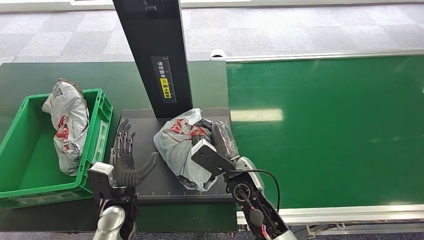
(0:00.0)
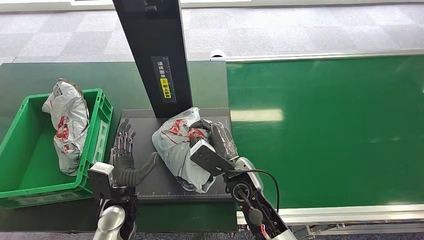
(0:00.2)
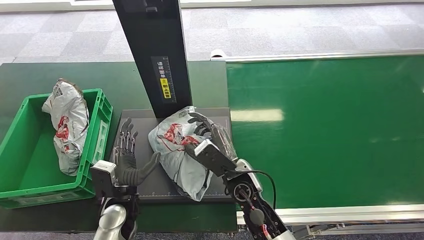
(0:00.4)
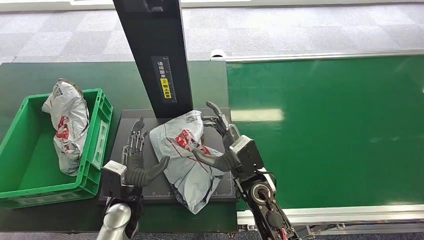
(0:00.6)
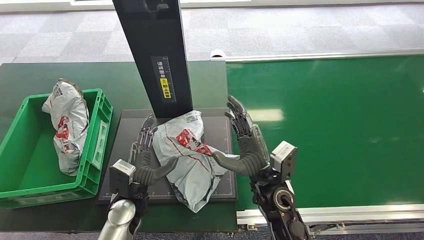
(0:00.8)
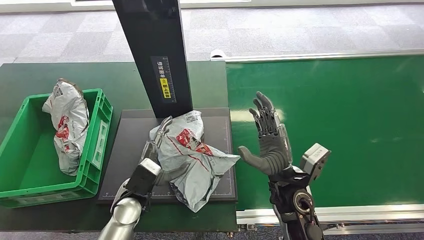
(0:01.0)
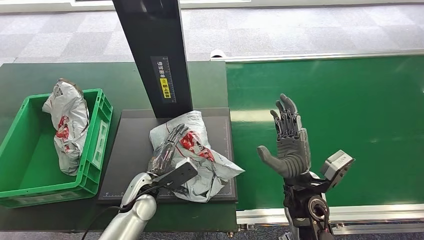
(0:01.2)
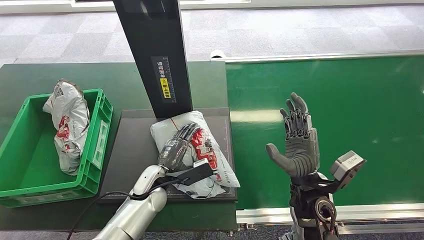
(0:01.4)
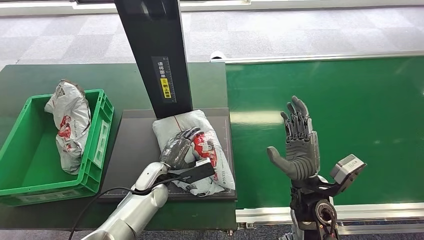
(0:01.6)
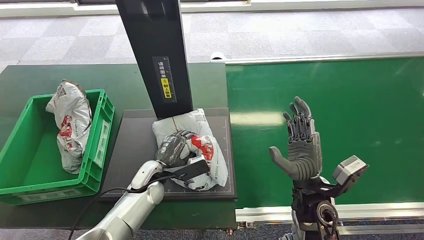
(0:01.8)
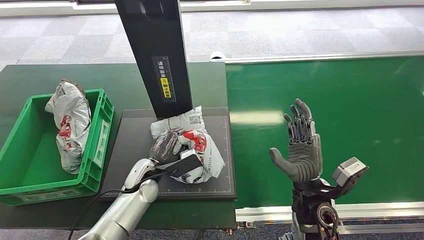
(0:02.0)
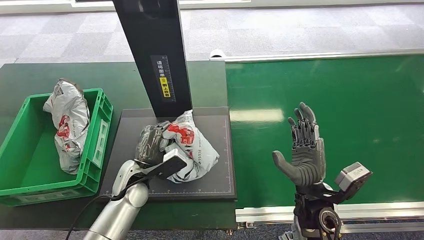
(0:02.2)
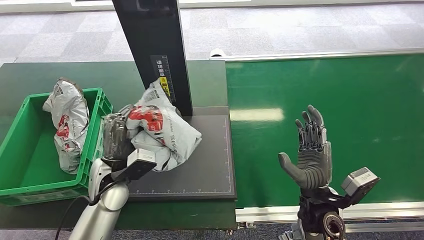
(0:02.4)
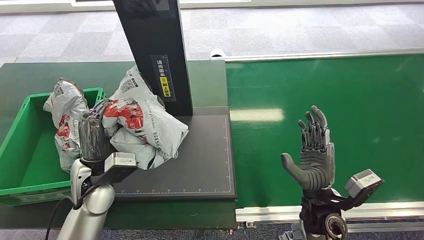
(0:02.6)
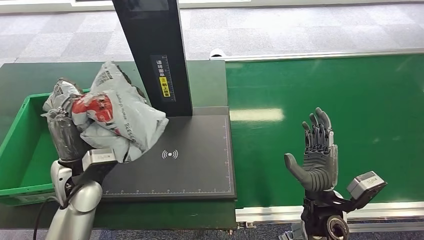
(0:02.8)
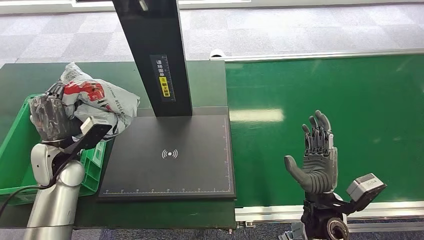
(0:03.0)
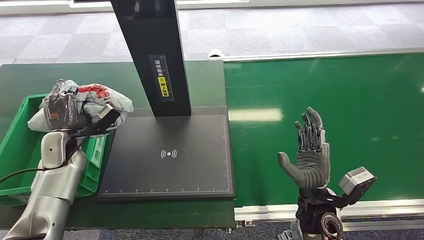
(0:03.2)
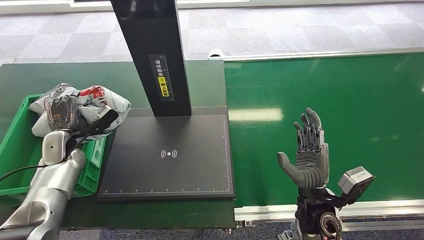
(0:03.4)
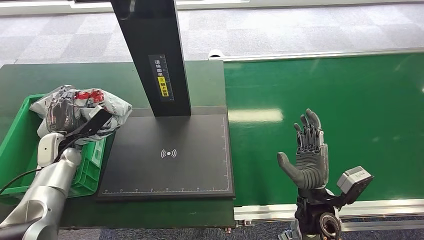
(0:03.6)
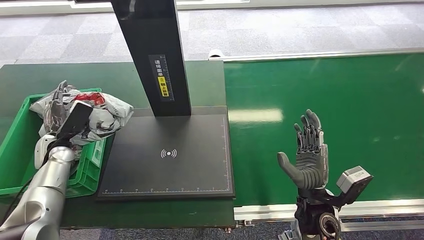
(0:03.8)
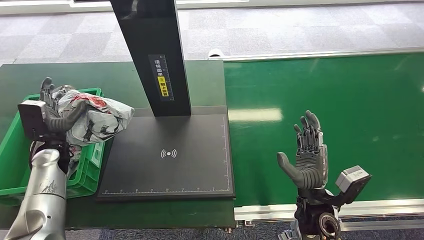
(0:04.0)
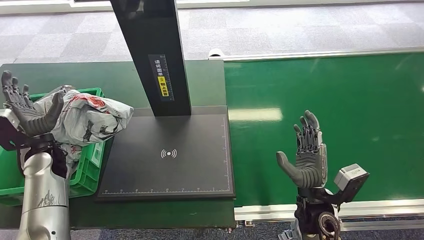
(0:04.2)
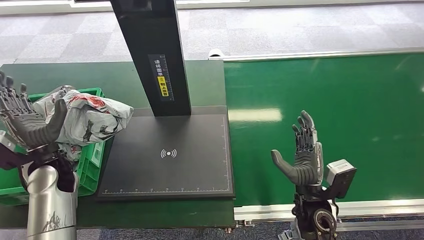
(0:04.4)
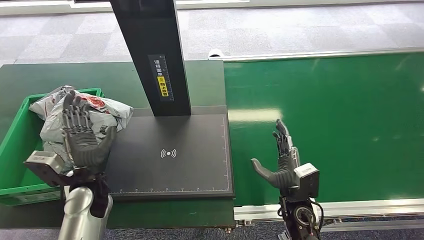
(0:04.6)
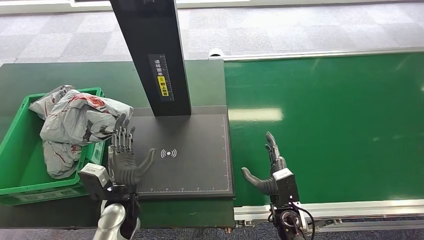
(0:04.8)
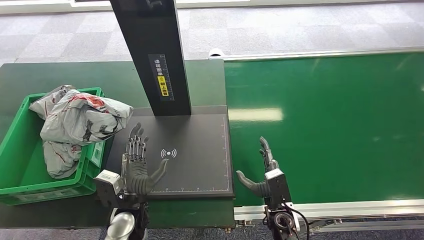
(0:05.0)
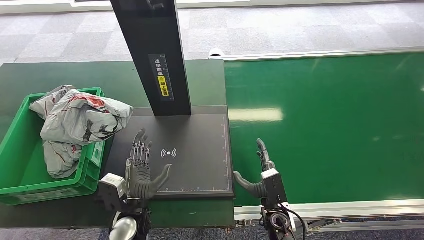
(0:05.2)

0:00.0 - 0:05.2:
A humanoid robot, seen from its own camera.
Step, 0:00.0 - 0:01.6: Place the package onto the inbound machine.
Step, 0:02.0 - 0:02.8: Pick up the package from the inbound machine.
Step, 0:03.2 - 0:05.2: Place the package into the parcel locker.
0:03.4 - 0:05.2: The right hand moves downward, approximately 10 cm. Meanwhile the left hand moves to the right and backward, approximately 30 cm.

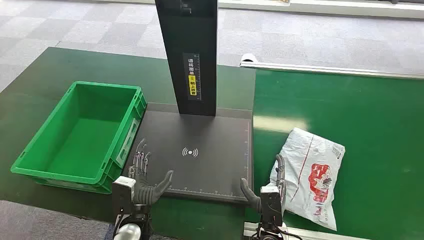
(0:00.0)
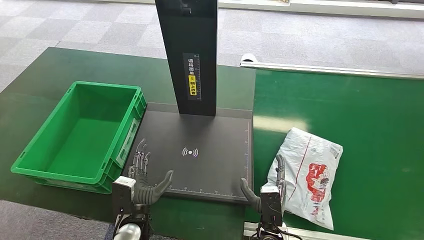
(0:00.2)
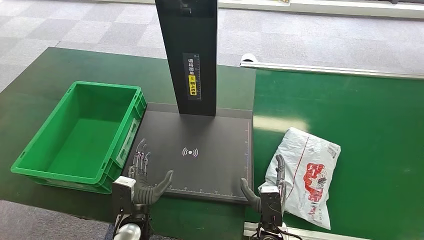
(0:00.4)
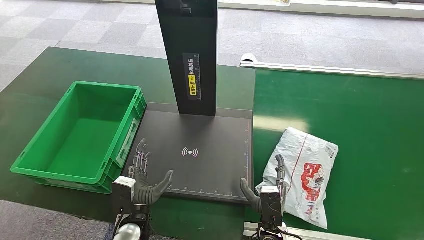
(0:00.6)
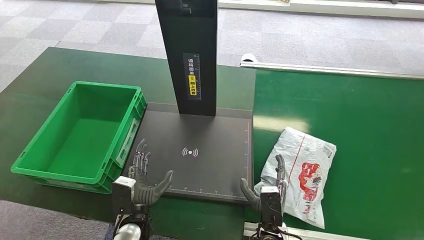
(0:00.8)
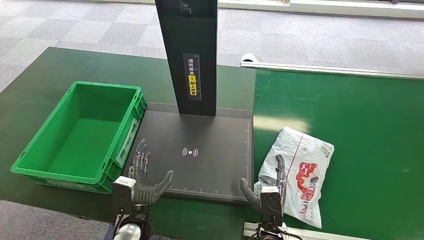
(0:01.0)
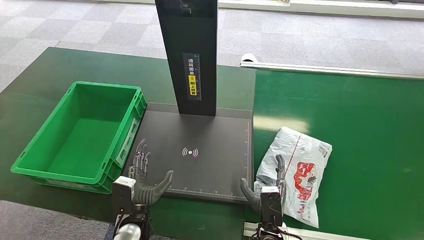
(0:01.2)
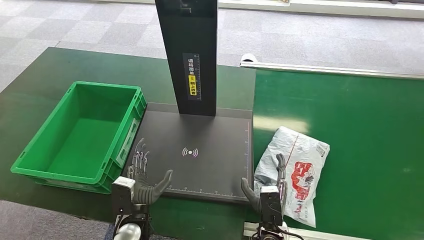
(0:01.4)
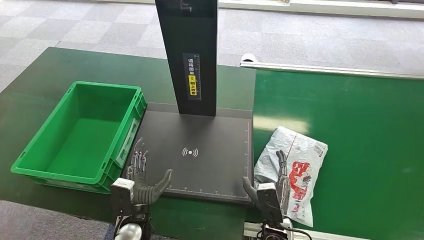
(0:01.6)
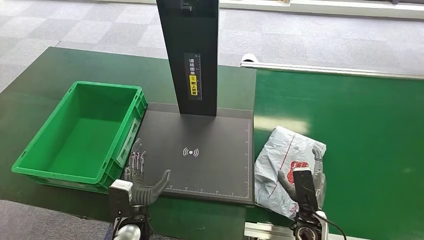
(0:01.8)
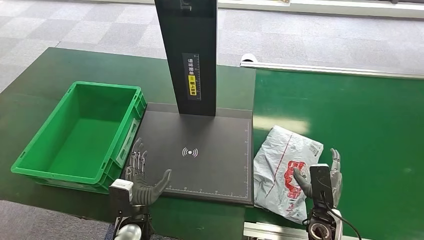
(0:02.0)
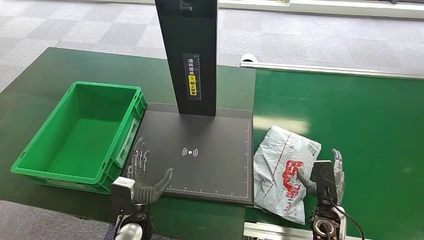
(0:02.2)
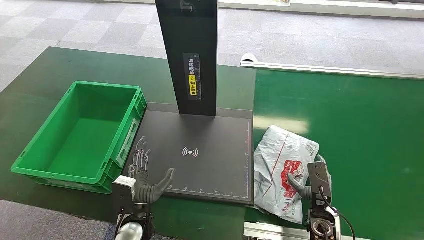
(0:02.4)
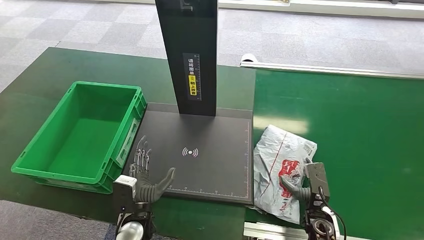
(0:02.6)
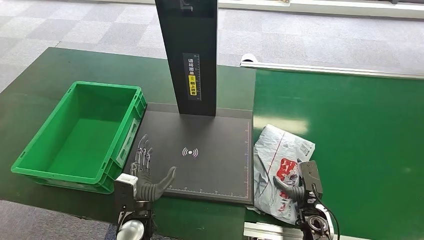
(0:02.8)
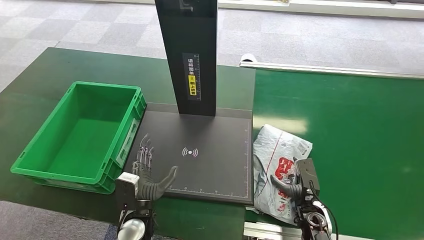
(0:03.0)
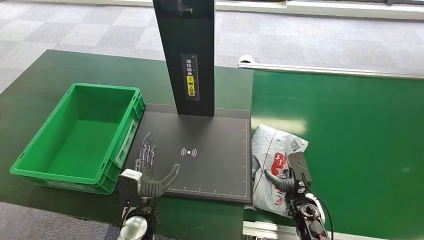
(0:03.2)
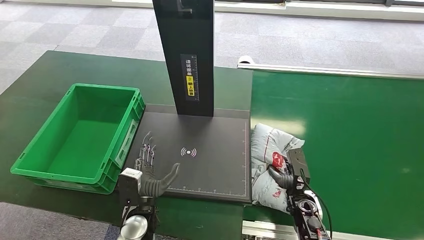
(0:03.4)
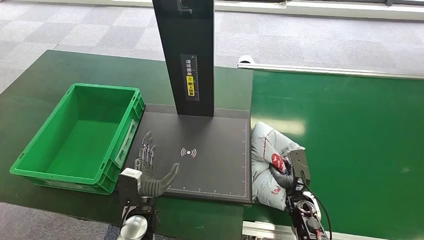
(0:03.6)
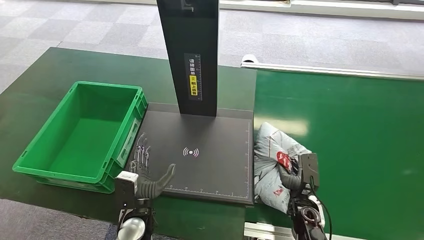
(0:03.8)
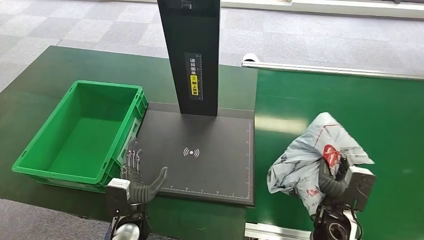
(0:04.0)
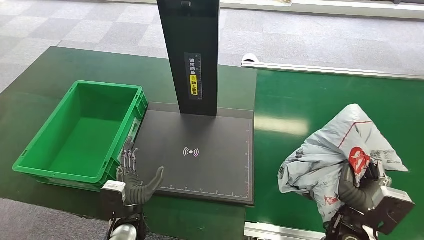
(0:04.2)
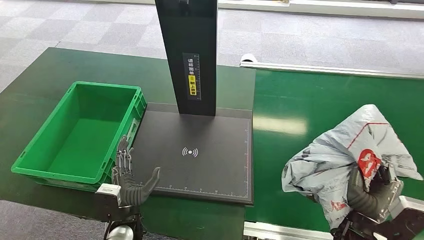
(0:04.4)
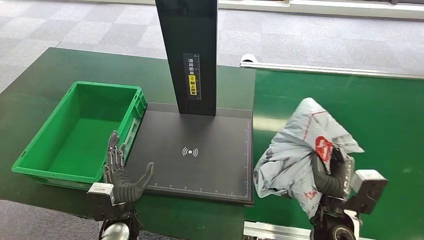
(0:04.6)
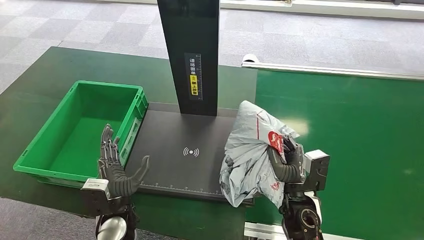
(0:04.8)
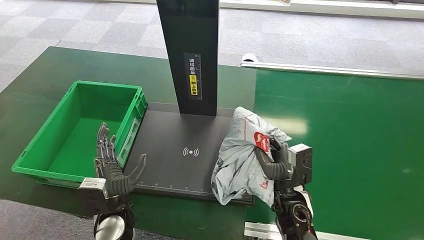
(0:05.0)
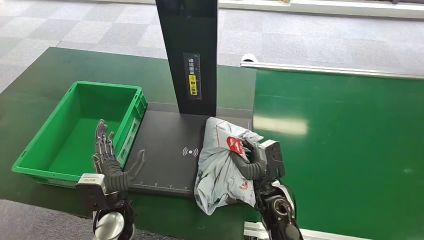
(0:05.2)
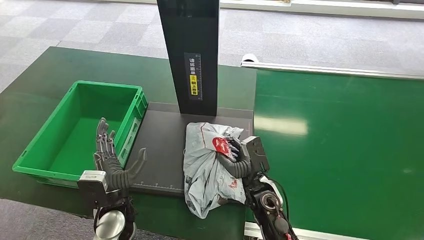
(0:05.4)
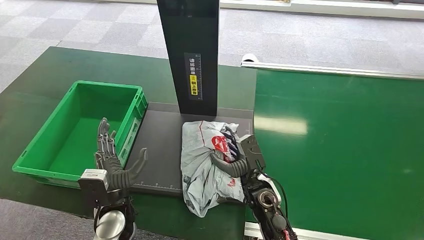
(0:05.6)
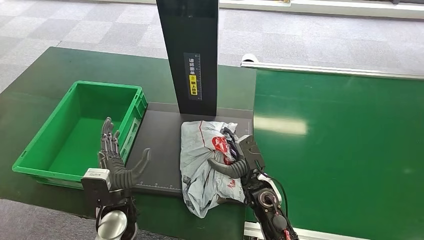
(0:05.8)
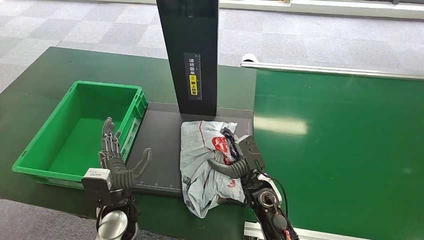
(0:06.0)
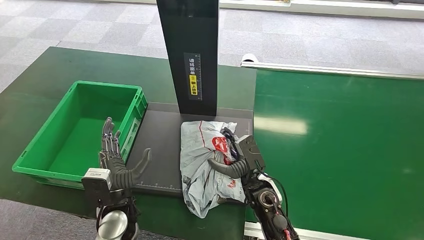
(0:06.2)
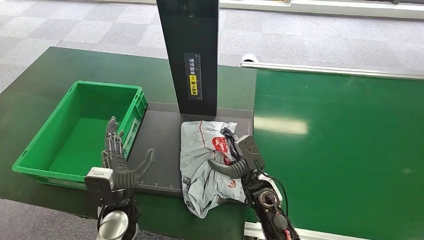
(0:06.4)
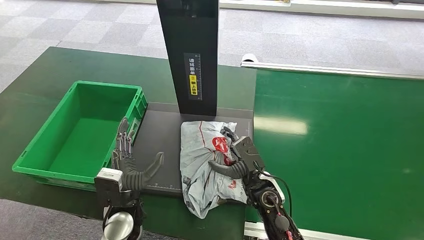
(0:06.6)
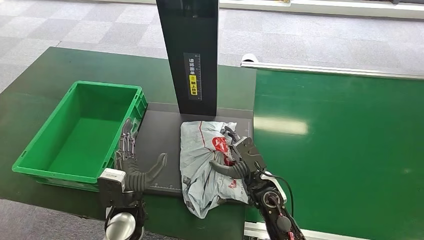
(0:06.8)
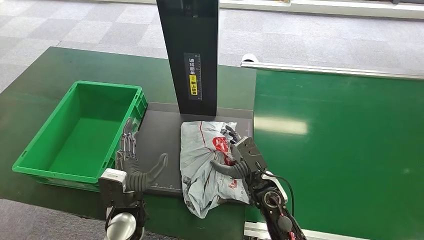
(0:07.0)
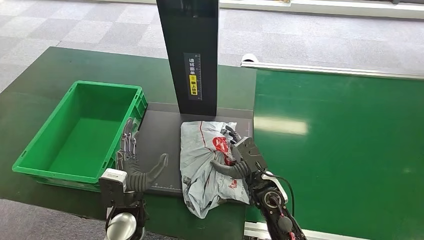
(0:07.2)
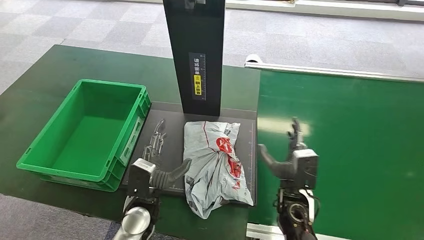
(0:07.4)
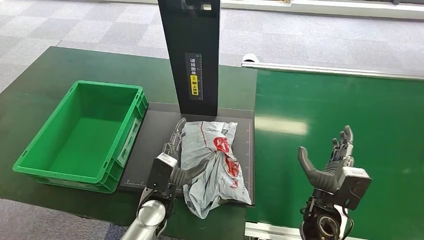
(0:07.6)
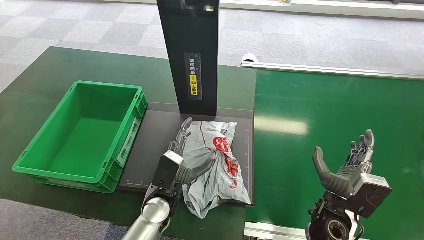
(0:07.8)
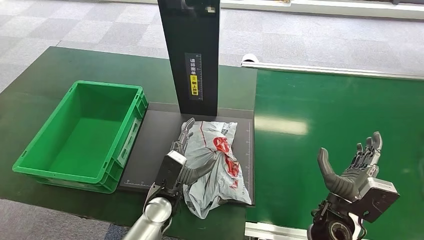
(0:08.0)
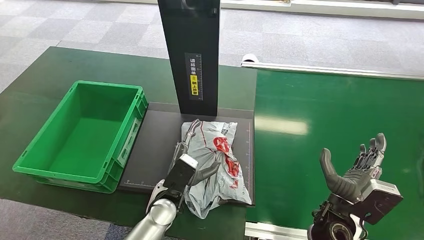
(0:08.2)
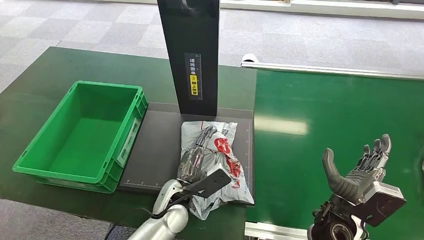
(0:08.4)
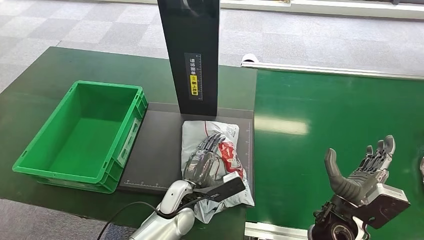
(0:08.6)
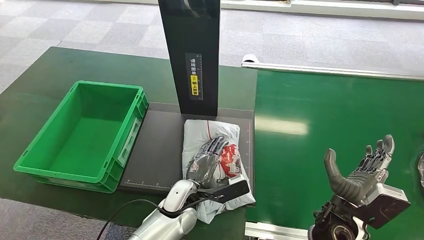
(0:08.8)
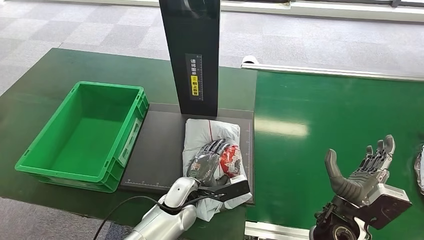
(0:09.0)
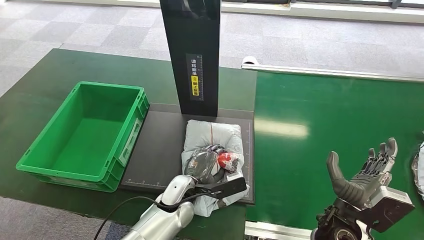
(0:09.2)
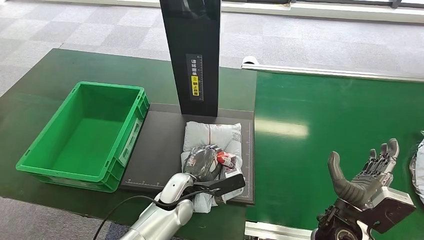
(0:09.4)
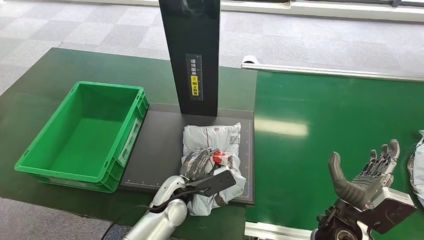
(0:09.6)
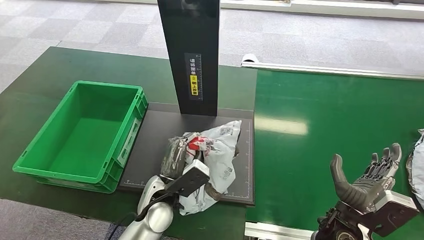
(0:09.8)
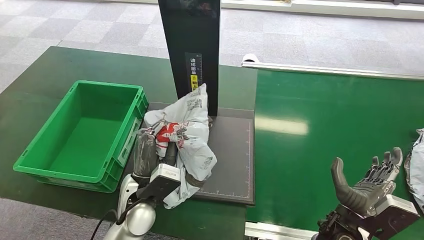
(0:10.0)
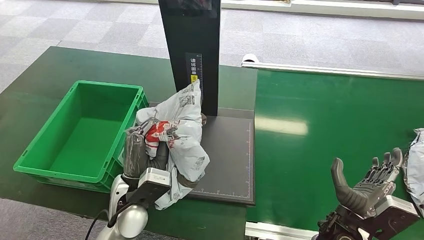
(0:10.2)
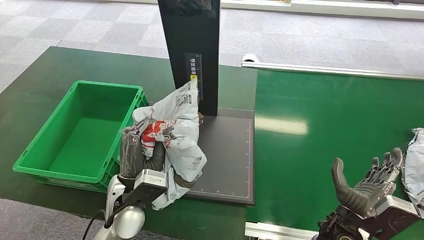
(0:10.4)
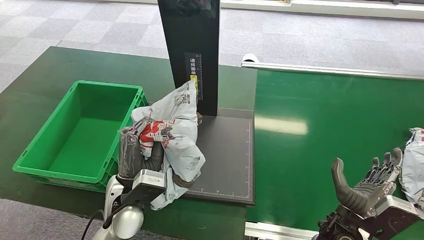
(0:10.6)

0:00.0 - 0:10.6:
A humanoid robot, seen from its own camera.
Step, 0:00.0 - 0:04.4: Pick up the package from the conveyor belt.
Step, 0:05.8 - 0:07.8: Place the package onto the inbound machine.
Step, 0:08.0 - 0:10.4: Pick up the package from the inbound machine.
0:01.6 - 0:03.0: The right hand travels to the right and forward by roughly 15 cm.
0:03.0 - 0:04.6: The right hand shifts roughly 10 cm upward.
0:04.6 - 0:06.0: The right hand heads to the left and forward, covering some 15 cm.
0:06.0 - 0:07.6: The right hand goes roughly 10 cm to the right; the left hand moves to the right, some 5 cm.

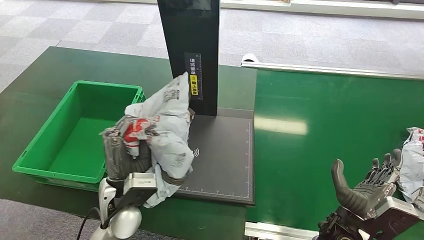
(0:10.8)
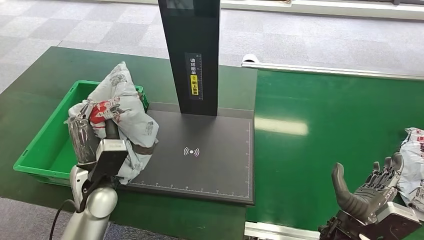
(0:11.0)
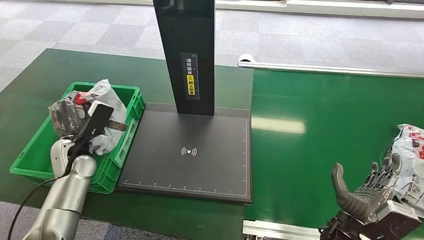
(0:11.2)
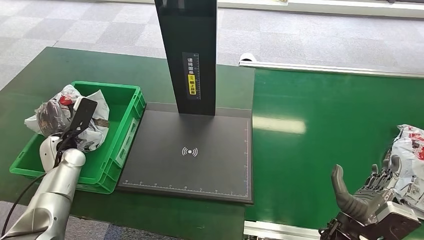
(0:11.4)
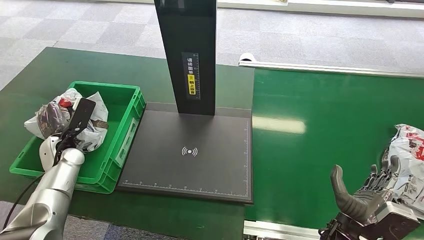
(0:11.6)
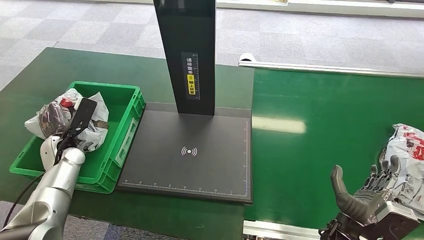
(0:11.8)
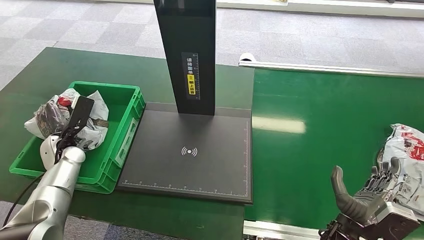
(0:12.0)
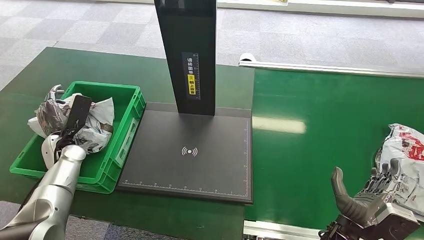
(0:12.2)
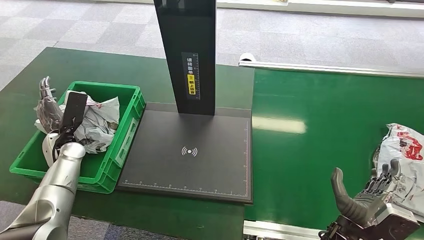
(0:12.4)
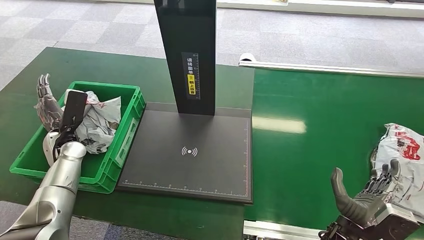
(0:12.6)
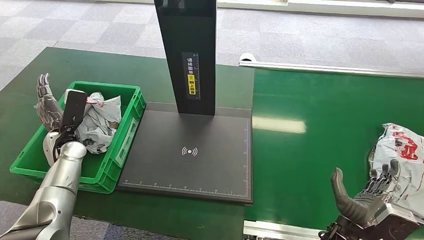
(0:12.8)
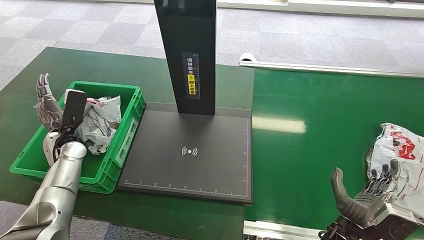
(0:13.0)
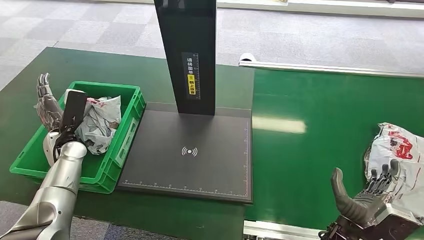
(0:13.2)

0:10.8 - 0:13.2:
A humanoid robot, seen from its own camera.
Step, 0:10.8 - 0:13.0: Place the package into the parcel locker.
0:12.0 - 0:13.2: The hands make only small movements.
